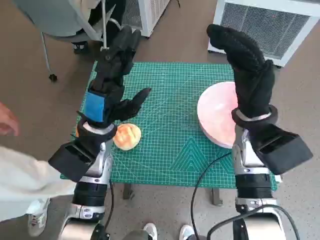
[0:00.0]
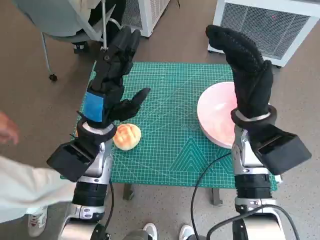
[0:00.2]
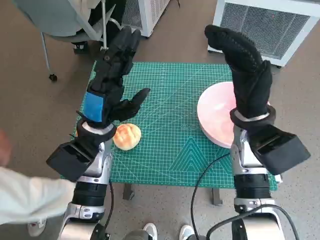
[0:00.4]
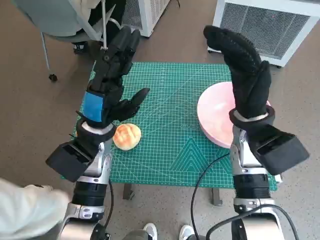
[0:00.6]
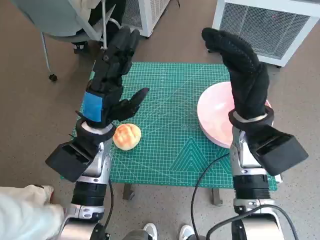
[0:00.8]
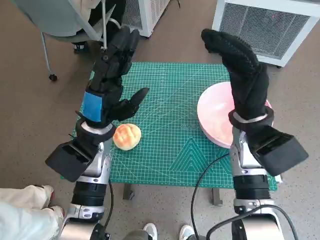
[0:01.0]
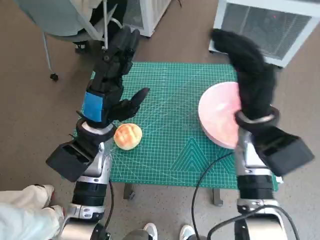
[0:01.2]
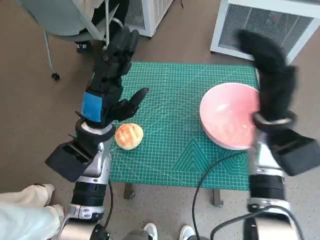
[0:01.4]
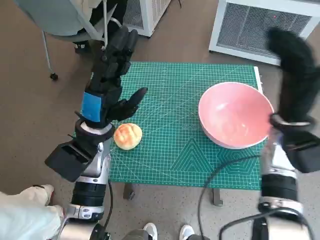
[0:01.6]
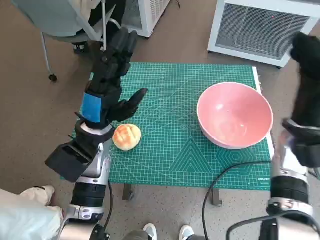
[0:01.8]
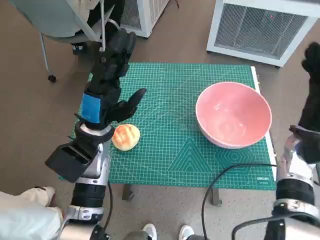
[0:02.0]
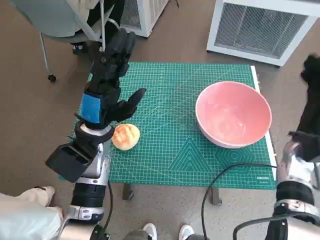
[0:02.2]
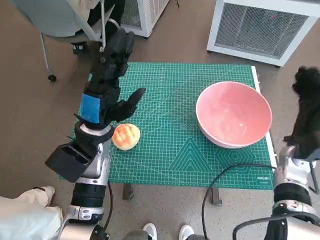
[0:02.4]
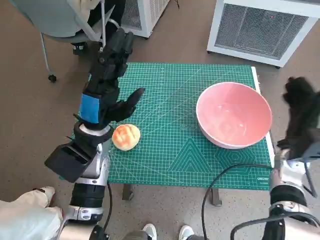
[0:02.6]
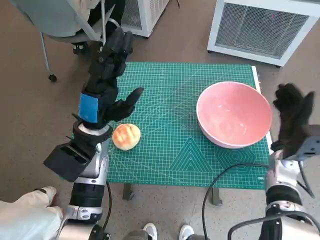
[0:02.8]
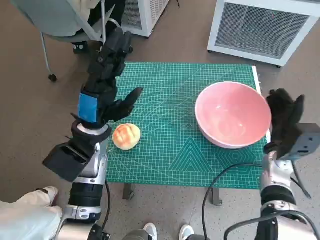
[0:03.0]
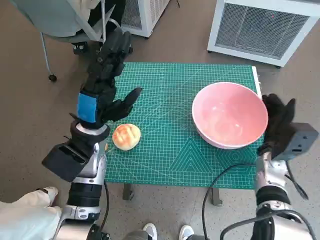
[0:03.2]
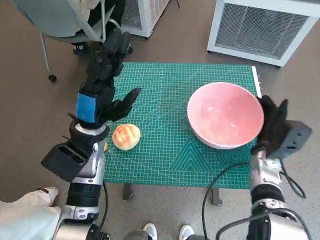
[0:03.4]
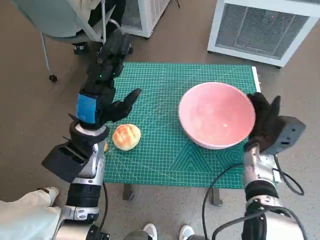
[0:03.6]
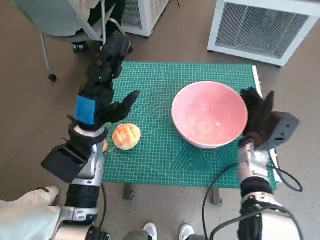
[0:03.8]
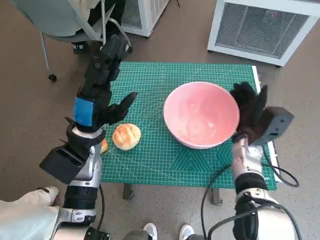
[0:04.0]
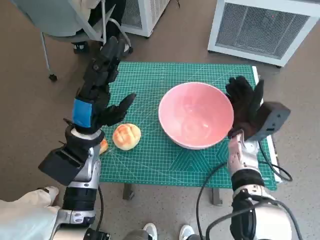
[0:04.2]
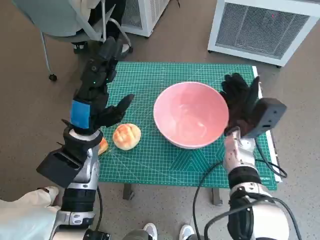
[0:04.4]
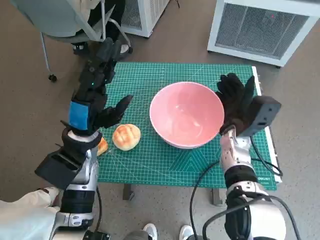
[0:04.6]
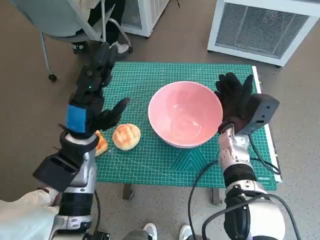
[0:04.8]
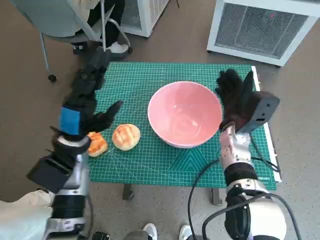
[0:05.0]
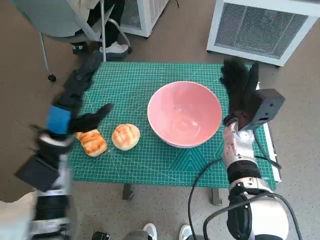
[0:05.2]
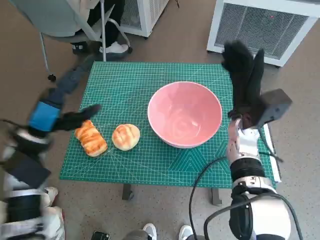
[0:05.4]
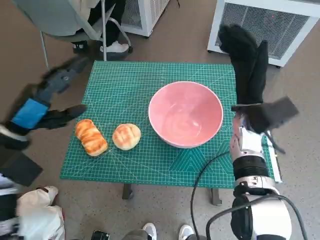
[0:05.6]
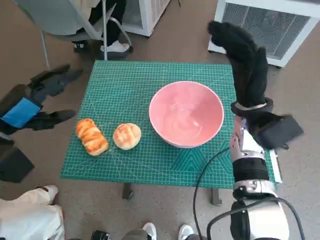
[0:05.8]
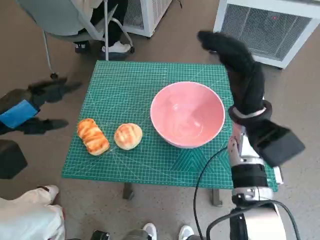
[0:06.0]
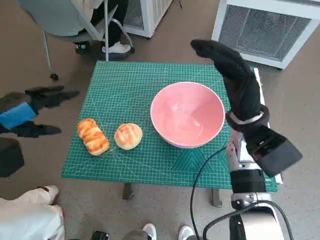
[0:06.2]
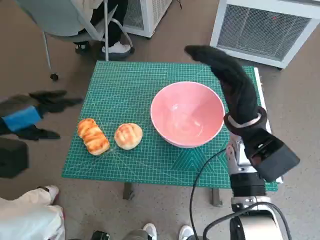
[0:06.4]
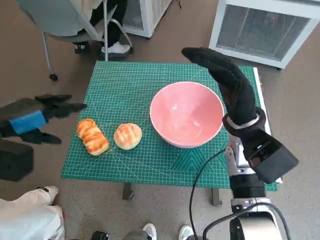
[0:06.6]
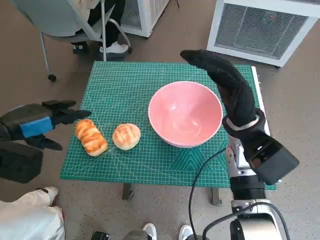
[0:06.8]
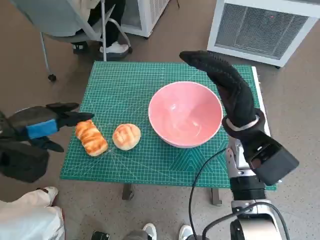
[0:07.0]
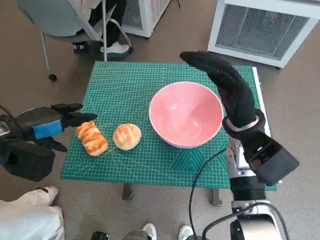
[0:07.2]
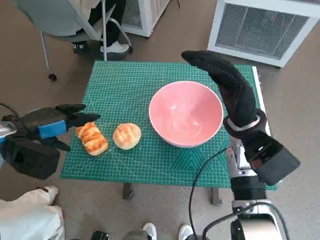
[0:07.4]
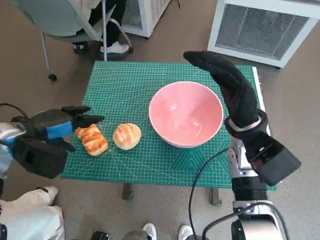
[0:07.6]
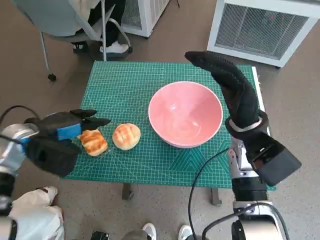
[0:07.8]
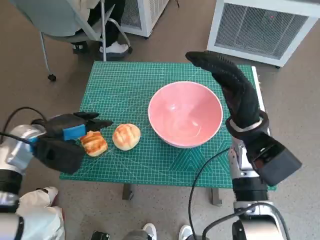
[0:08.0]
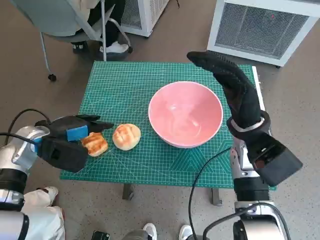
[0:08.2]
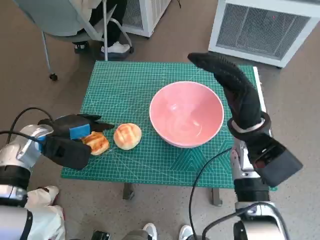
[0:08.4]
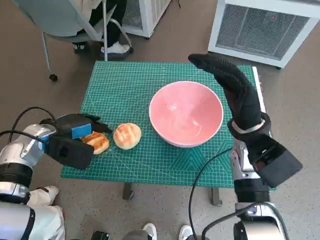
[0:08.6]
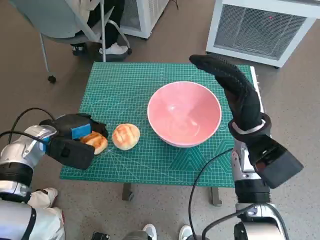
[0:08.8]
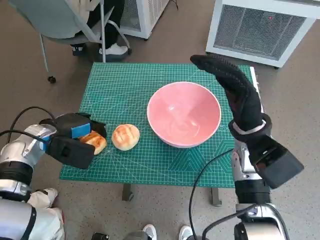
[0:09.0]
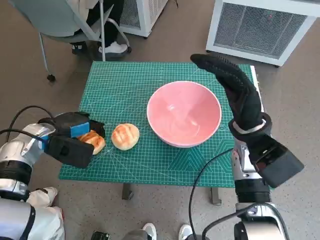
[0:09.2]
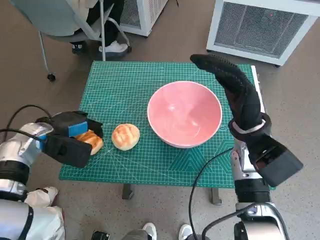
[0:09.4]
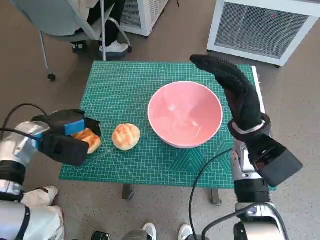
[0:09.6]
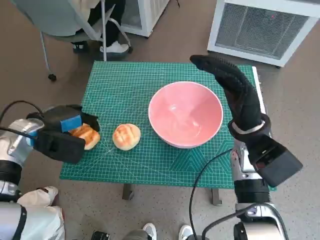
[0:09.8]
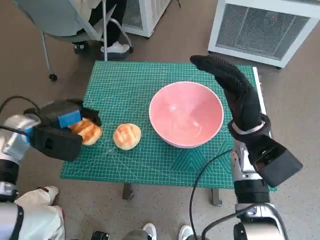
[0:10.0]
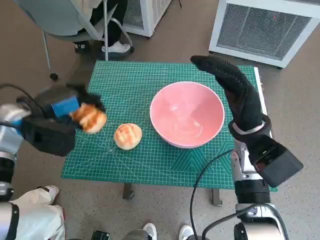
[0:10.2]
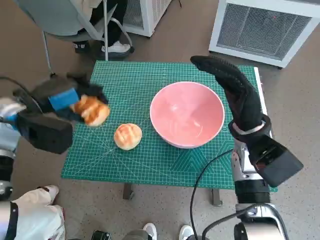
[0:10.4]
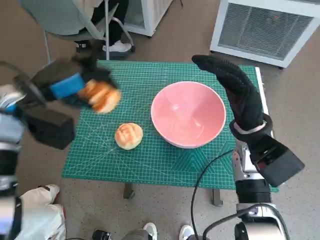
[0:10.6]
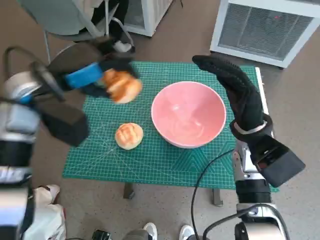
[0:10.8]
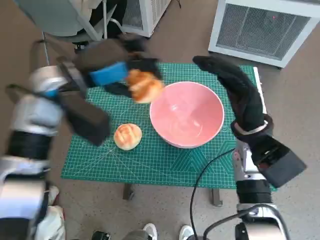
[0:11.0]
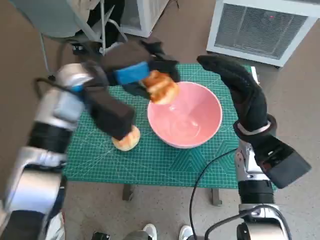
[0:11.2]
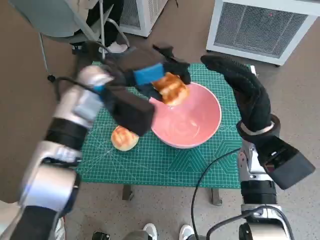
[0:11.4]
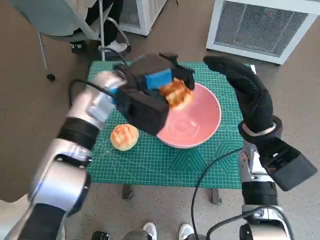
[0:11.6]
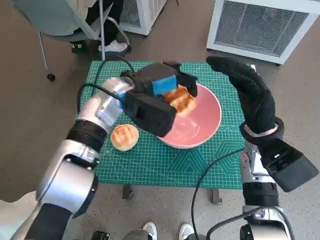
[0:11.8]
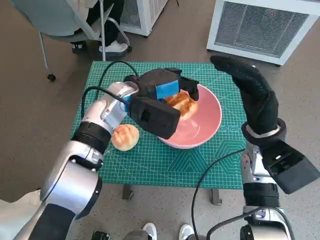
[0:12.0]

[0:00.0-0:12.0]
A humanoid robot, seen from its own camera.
Task of the whole recording: Push the bowl to the center of the table and put the bread into the bowl.
Step, 0:00.0 to 0:05.4: Move the pink bowl to the center of table with right hand.
Step, 0:05.6 to 0:08.6: Grasp the long bread with left hand.
0:01.6 to 0:03.0: The right hand is displaced downward by some 10 cm.
0:03.0 to 0:04.4: The right hand shifts about 10 cm to the left.
0:04.4 to 0:06.0: The right hand is displaced upward by about 10 cm, while the left hand moves to the left and upward, some 15 cm.
0:06.0 to 0:07.6: The left hand ends up about 5 cm from where it was.
0:07.6 to 0:09.0: The left hand changes place by roughly 5 cm.
0:09.0 to 0:10.4: The left hand shifts roughly 10 cm upward.
0:10.4 to 0:12.0: The left hand travels to the right by approximately 20 cm.

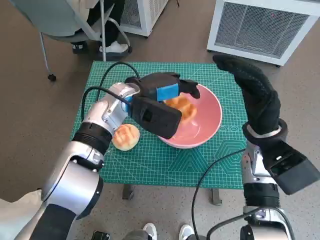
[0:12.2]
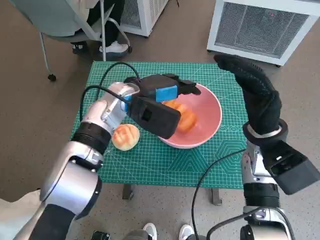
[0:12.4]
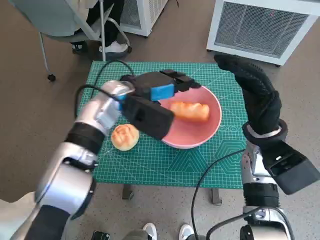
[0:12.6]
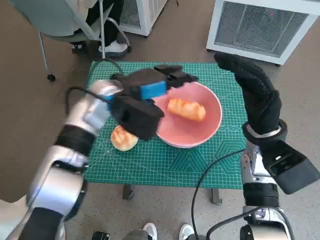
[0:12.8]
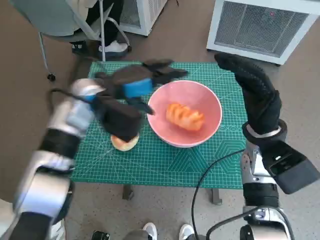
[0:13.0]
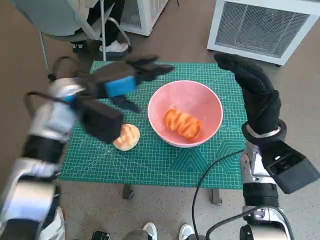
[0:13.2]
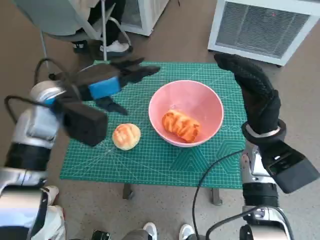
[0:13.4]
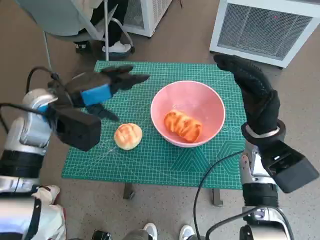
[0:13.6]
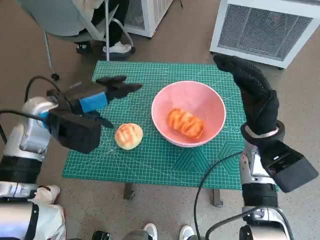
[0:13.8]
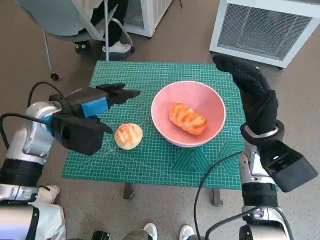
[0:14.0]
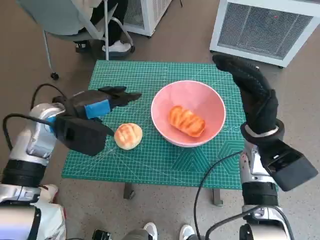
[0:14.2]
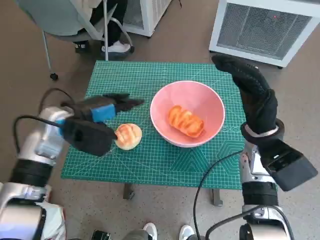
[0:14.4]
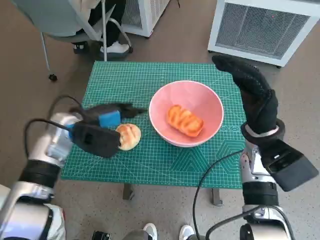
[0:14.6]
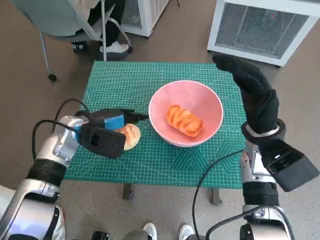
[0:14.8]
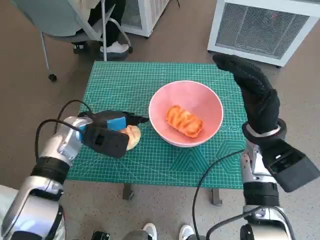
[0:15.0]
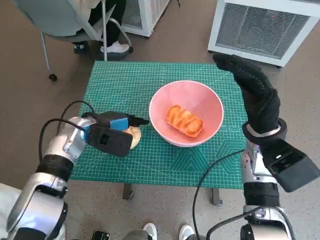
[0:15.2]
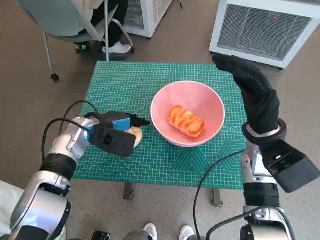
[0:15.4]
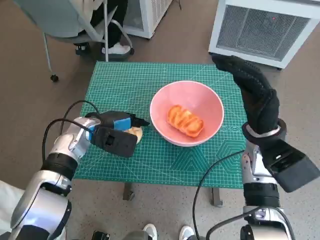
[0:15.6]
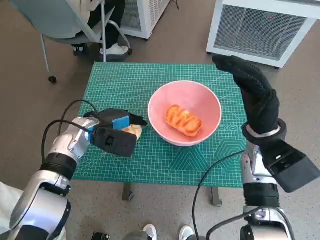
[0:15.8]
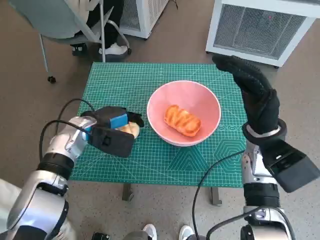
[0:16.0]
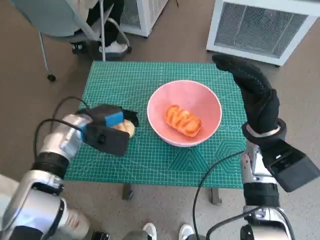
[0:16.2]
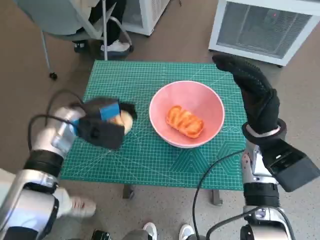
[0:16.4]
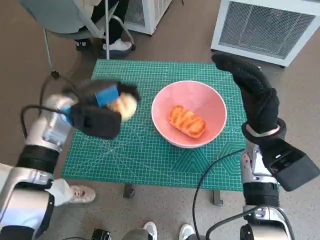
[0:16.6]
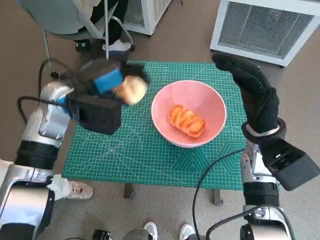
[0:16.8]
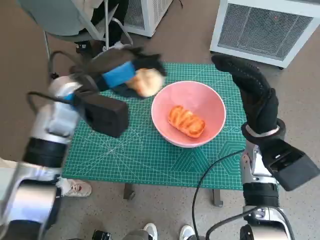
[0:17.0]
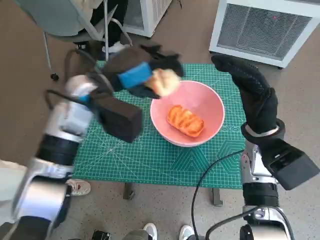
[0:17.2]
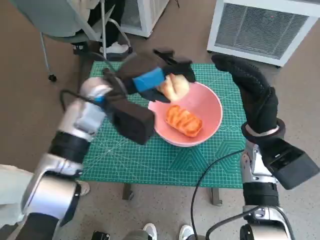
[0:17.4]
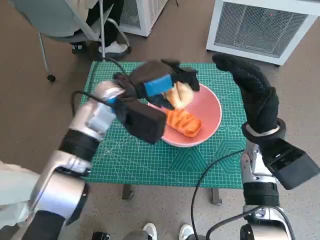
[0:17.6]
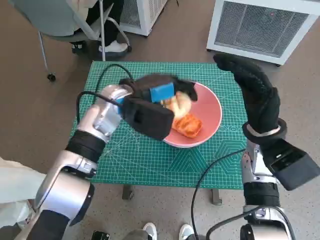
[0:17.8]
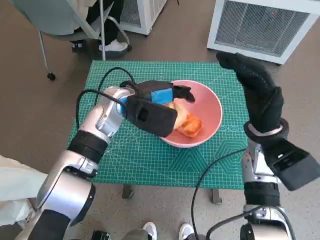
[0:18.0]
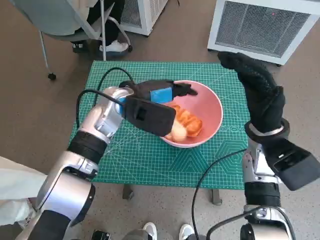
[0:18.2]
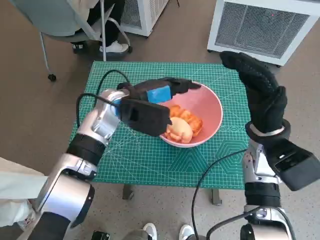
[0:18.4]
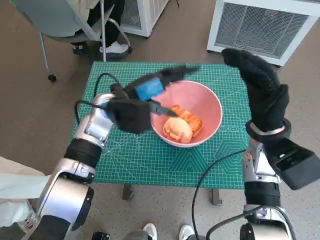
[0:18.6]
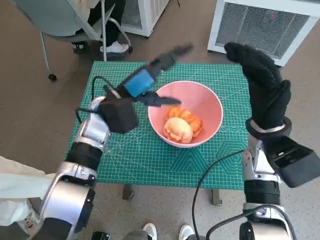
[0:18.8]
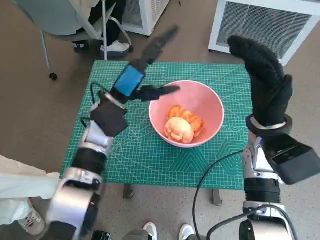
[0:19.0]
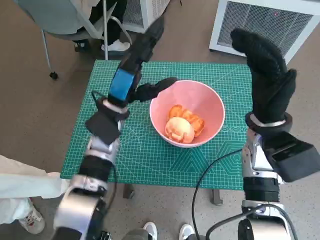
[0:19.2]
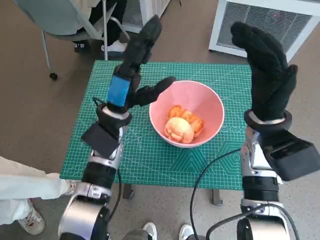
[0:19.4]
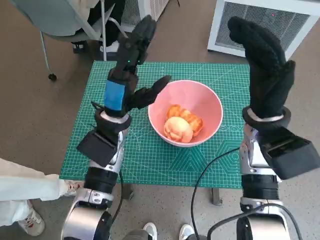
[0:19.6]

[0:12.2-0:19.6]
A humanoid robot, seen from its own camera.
Task of the whole recording: Push the bowl to the center of the table and put the bread into the bowl.
Step, 0:13.2 to 0:15.8: Grasp the round bread with left hand.
Step, 0:16.0 to 0:18.2: Place the round bread in pink bowl with left hand.
0:12.2 to 0:13.6: The left hand goes about 10 cm to the left.
0:13.6 to 0:15.2: The left hand shifts approximately 10 cm downward.
0:15.2 to 0:16.6: The left hand shifts roughly 5 cm upward.
0:16.6 to 0:18.2: The left hand goes approximately 10 cm to the right.
0:18.2 to 0:19.6: The left hand ends up approximately 5 cm from where it was.

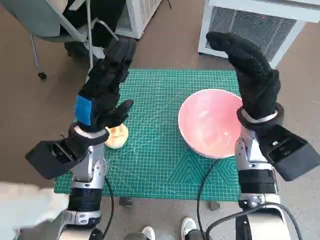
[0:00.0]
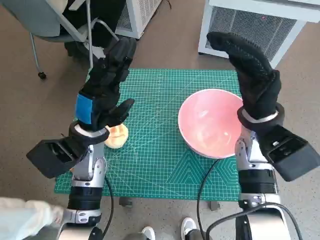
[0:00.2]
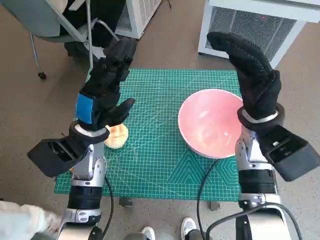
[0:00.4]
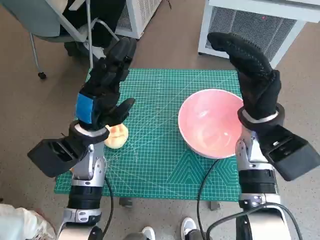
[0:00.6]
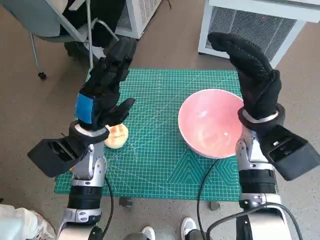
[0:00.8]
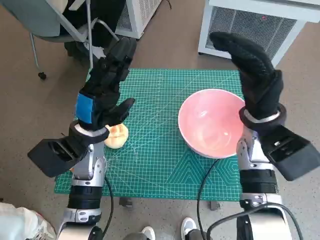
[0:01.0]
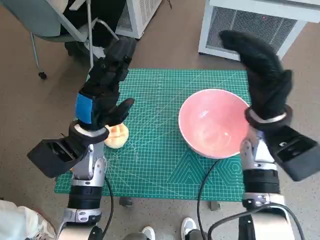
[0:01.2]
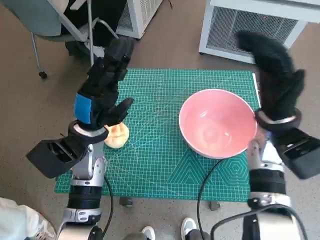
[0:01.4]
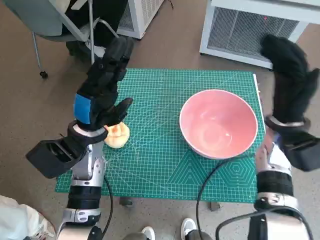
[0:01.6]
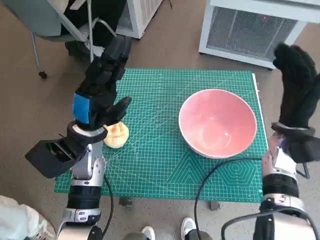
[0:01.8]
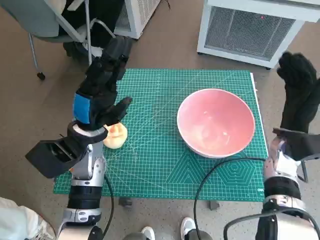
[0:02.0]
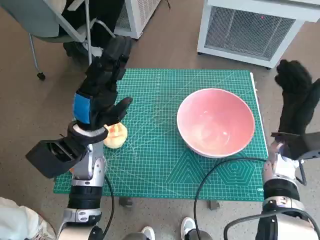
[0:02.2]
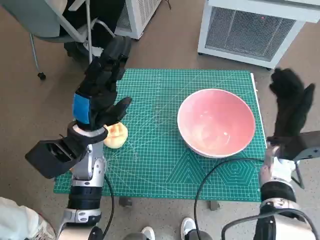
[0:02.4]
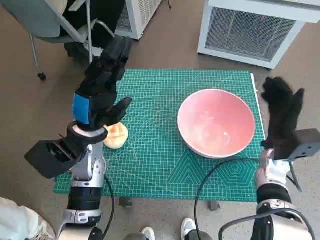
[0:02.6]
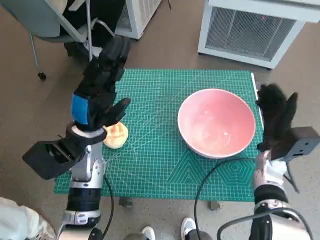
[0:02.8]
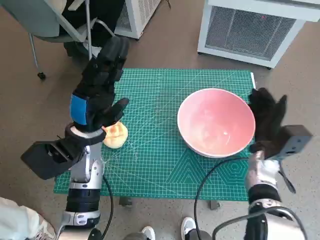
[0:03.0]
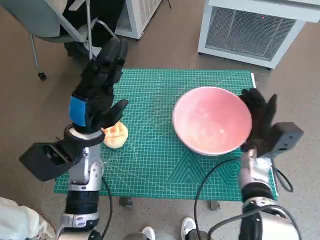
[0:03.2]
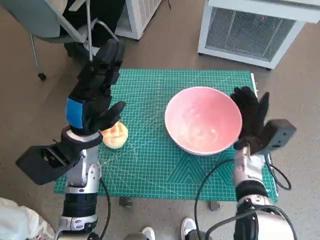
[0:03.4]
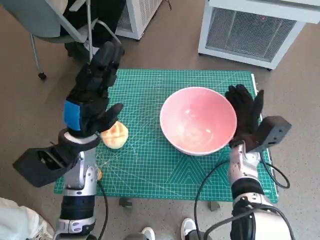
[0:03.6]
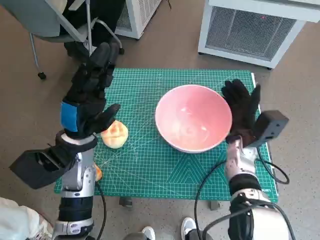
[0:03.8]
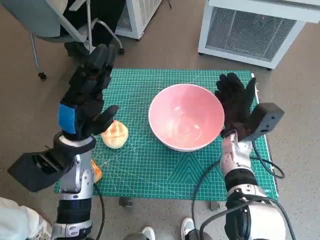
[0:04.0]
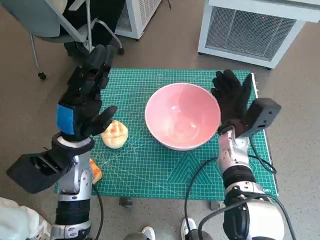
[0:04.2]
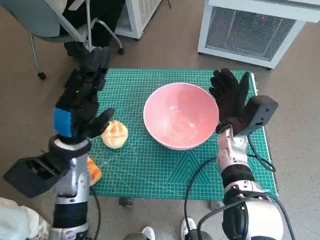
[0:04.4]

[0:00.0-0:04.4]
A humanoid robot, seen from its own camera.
Task of the whole recording: Push the bowl to the center of the table and put the bread into the bowl.
0:01.4 to 0:03.0: The right hand travels downward by roughly 15 cm.
0:03.0 to 0:04.4: The right hand travels to the left by some 10 cm.
